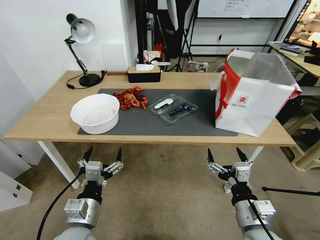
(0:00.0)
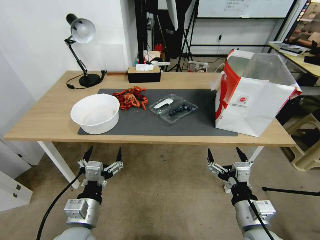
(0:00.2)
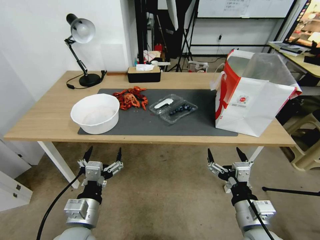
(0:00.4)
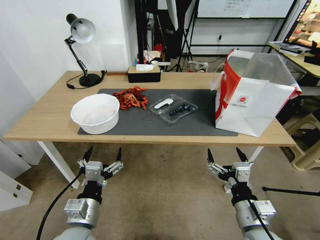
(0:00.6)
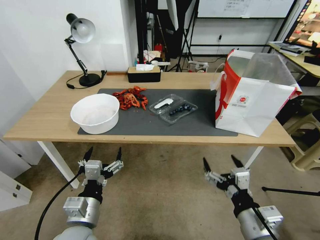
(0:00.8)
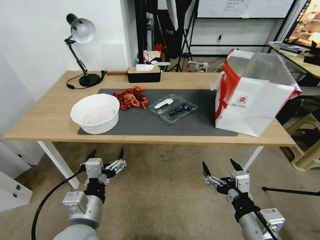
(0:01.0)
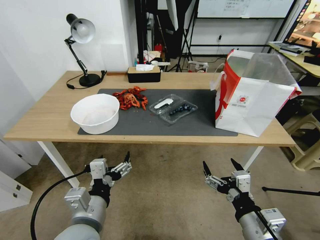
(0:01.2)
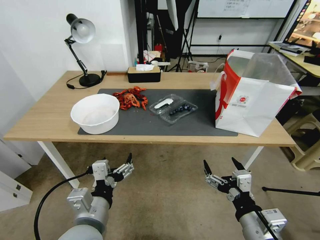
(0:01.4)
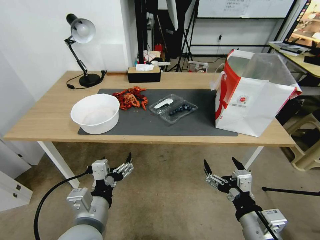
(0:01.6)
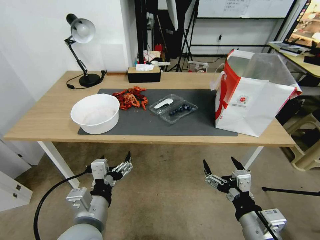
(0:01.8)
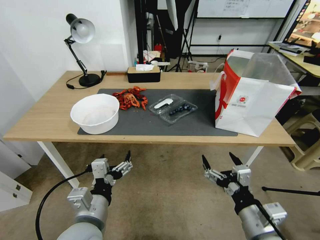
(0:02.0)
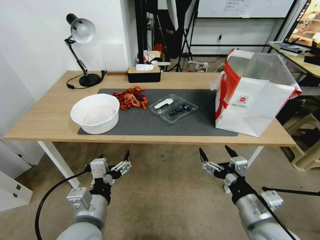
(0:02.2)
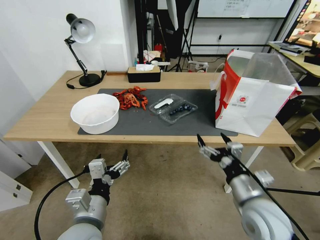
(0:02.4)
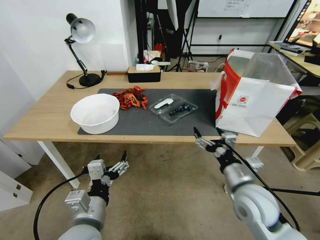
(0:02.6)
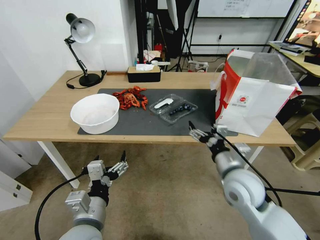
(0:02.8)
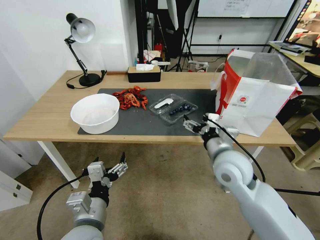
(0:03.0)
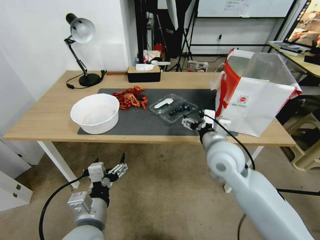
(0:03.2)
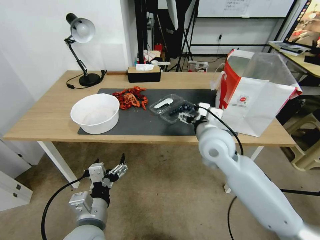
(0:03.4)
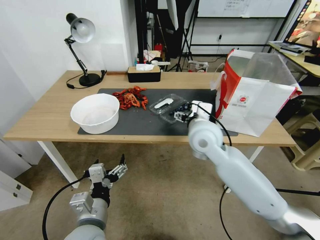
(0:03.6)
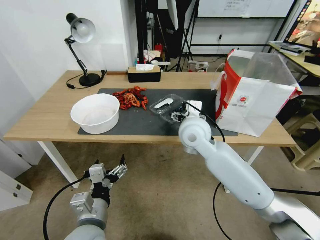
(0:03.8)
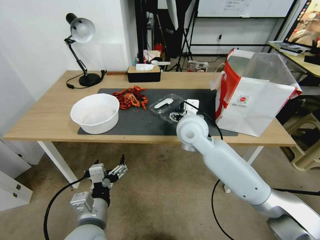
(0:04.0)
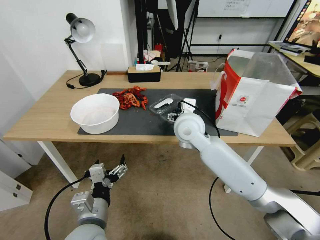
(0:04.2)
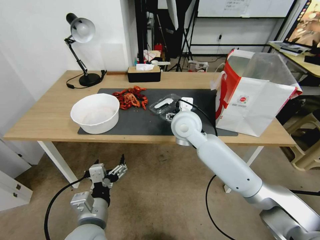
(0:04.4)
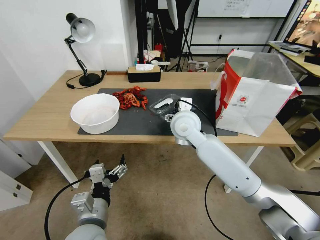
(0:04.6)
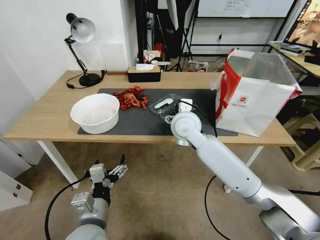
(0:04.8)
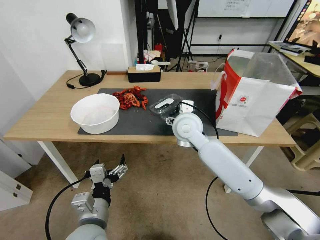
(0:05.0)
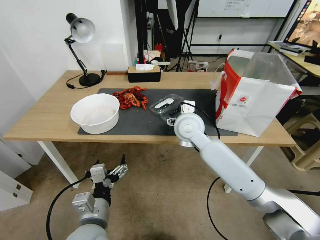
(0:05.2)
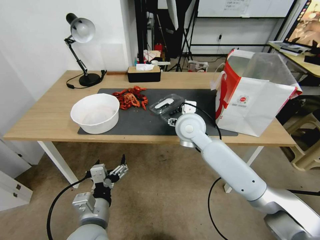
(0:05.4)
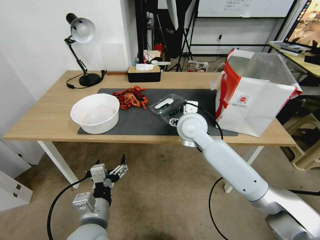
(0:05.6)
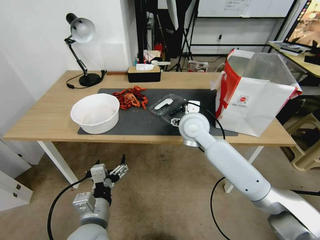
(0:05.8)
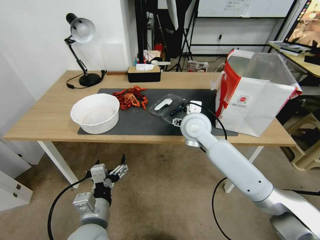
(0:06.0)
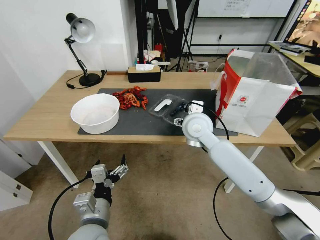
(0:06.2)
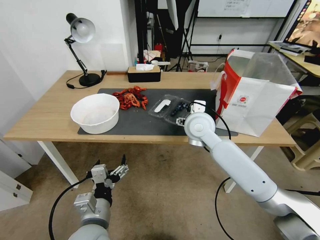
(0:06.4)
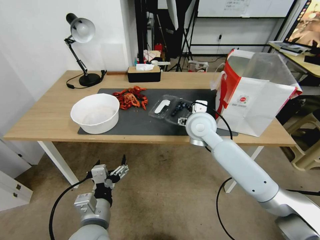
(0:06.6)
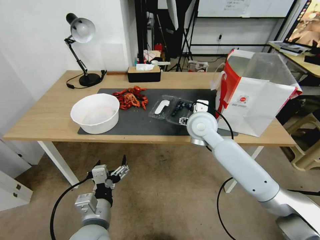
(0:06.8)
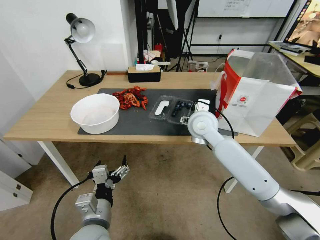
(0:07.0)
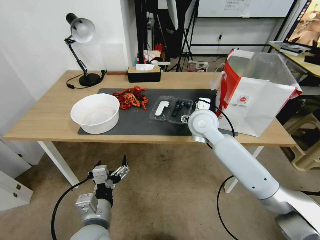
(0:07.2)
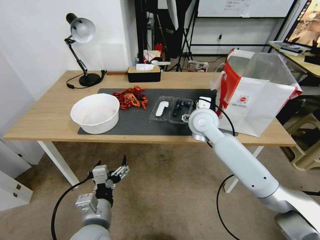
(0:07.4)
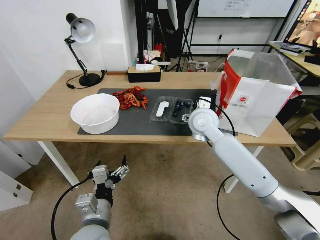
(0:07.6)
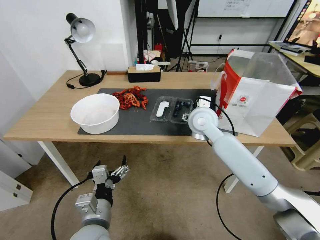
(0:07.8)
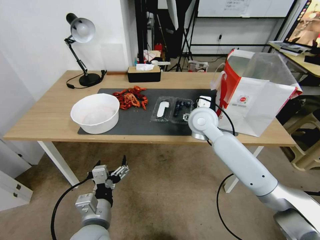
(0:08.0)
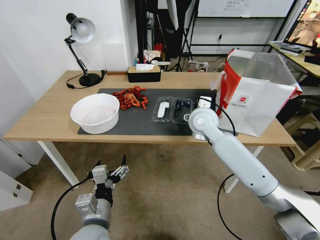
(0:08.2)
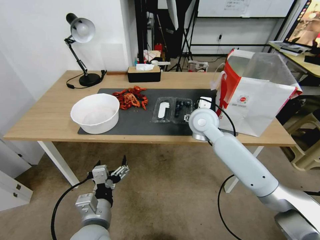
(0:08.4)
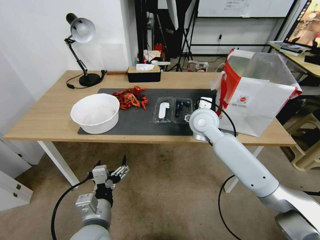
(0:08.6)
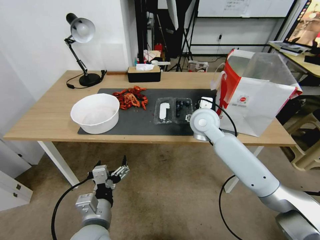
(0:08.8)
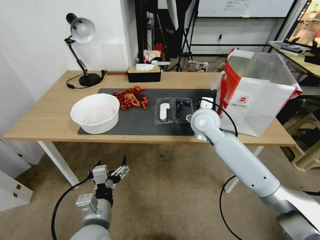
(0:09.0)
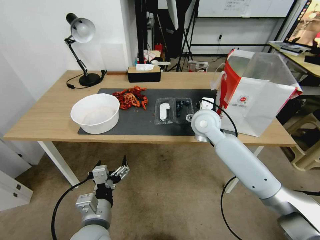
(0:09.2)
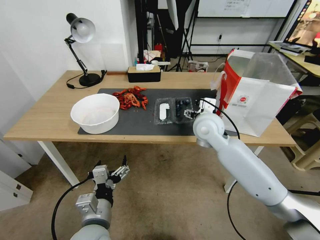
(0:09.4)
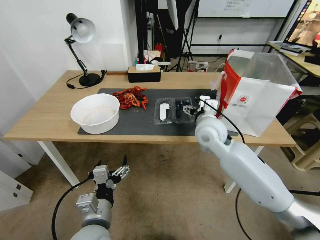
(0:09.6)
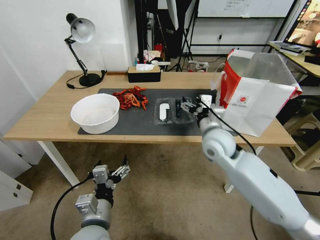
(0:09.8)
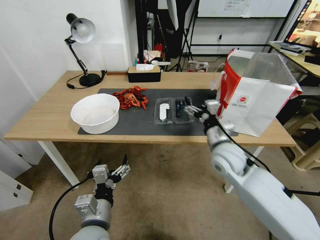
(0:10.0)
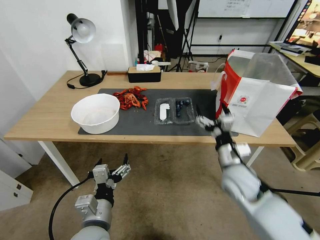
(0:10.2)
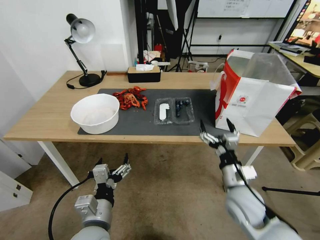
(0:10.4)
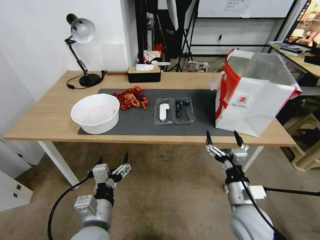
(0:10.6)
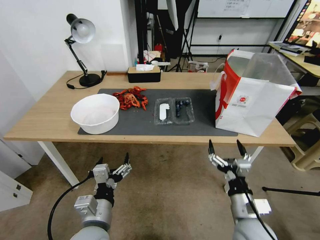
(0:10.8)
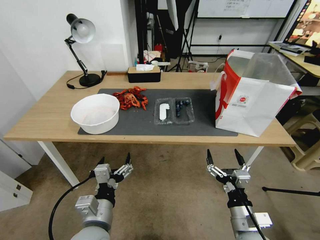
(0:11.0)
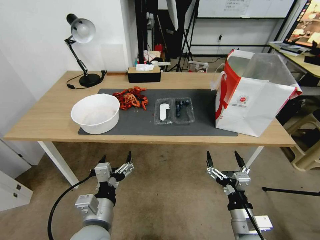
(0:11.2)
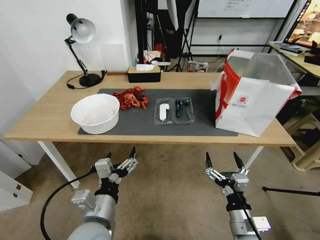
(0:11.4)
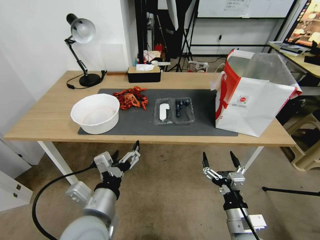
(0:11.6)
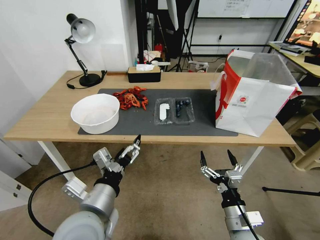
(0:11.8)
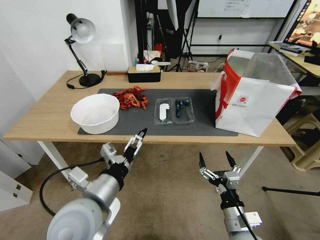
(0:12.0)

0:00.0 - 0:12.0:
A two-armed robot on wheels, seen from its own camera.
Task of the whole recording: Close the takeout container lid, then place the container into the takeout bag.
0:01.6 - 0:03.0: The right gripper heads forward, covering some 20 cm.
0:03.0 - 0:04.4: The right gripper travels forward and to the left by some 15 cm.
0:04.4 - 0:07.6: The grippers move only a little.
0:07.6 - 0:09.0: Both grippers stay about where they are.
0:09.0 - 0:10.4: The right gripper goes roughly 25 cm backward, downward and to the right.
0:10.4 - 0:12.0: The left gripper shifts roughly 10 cm upward, while the right gripper heads backward, covering approximately 10 cm.

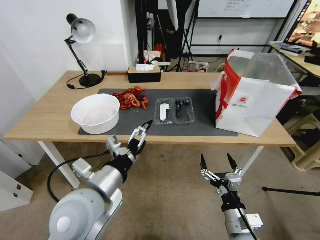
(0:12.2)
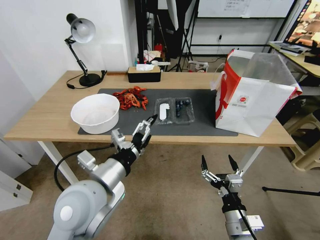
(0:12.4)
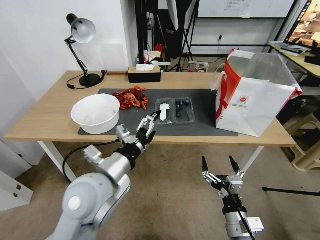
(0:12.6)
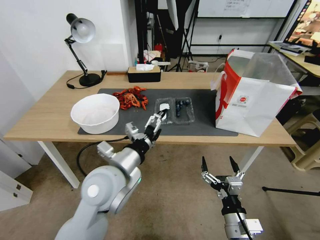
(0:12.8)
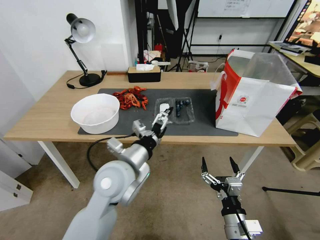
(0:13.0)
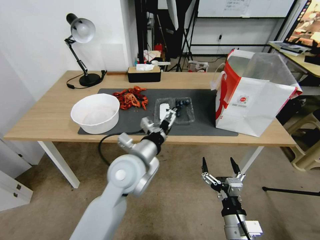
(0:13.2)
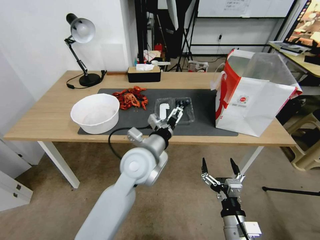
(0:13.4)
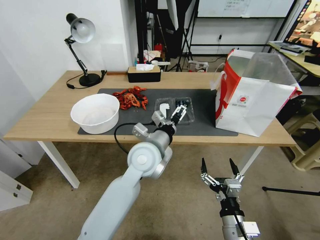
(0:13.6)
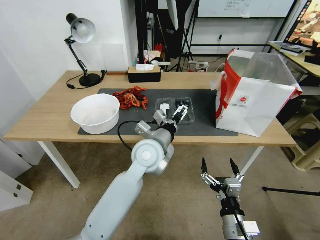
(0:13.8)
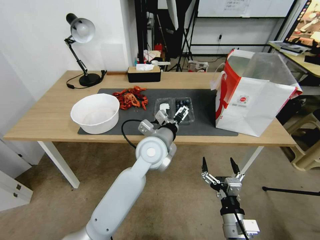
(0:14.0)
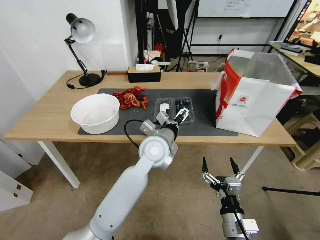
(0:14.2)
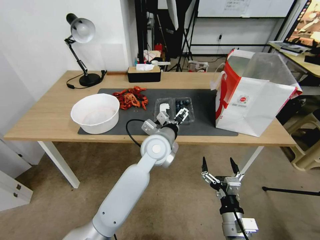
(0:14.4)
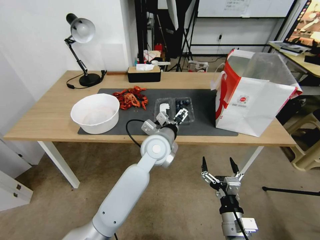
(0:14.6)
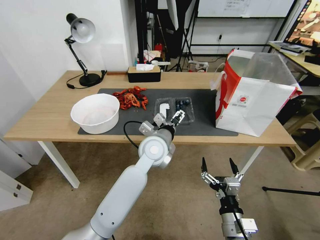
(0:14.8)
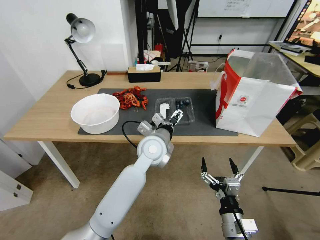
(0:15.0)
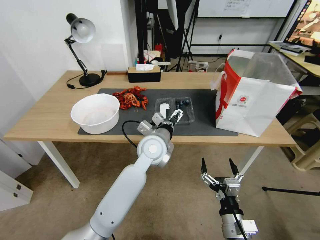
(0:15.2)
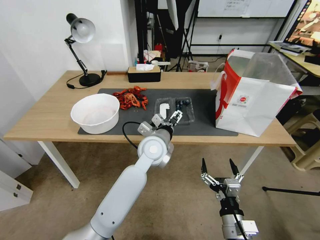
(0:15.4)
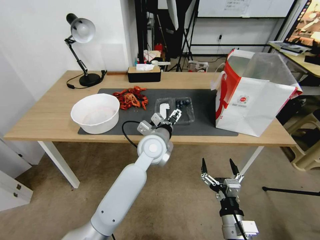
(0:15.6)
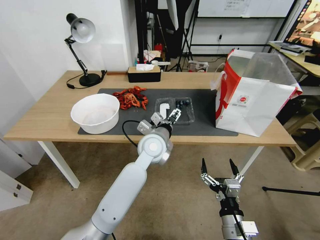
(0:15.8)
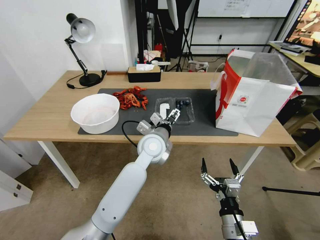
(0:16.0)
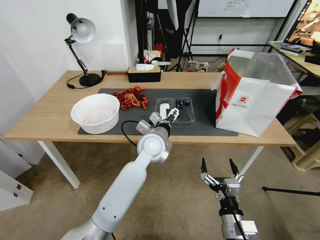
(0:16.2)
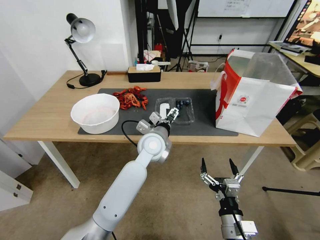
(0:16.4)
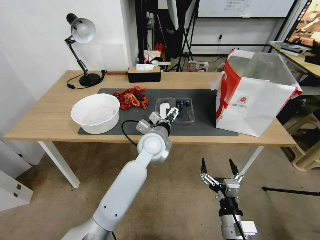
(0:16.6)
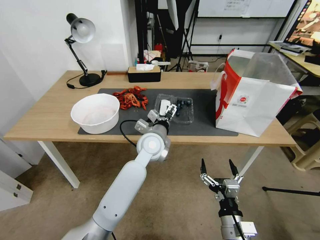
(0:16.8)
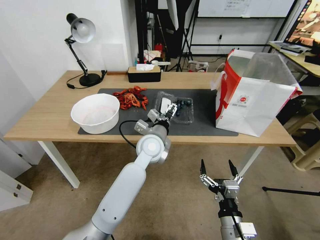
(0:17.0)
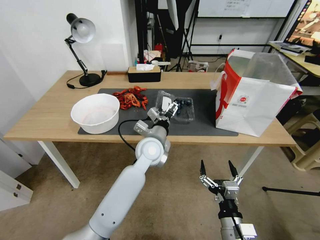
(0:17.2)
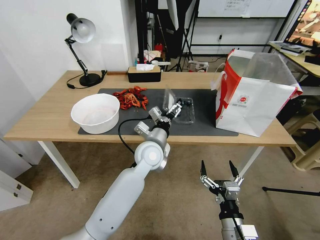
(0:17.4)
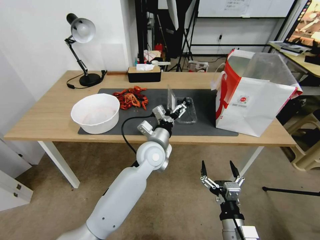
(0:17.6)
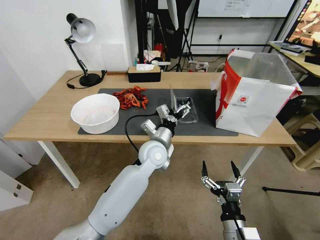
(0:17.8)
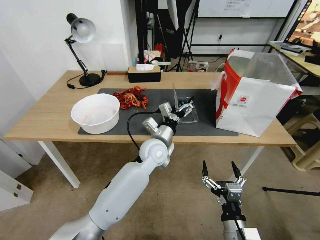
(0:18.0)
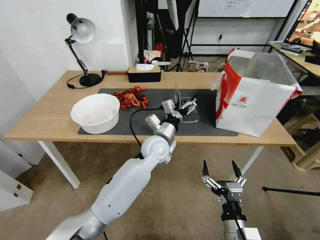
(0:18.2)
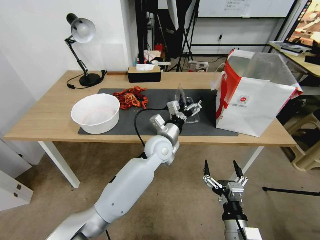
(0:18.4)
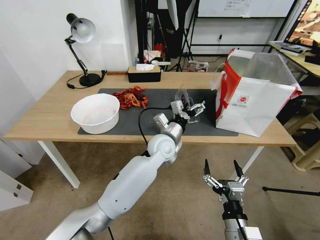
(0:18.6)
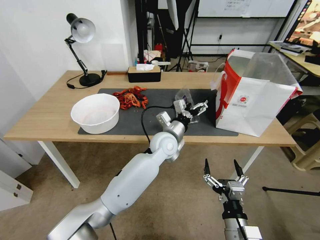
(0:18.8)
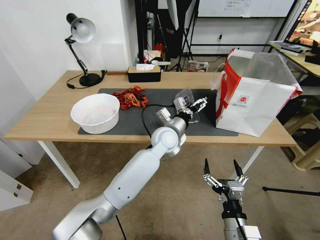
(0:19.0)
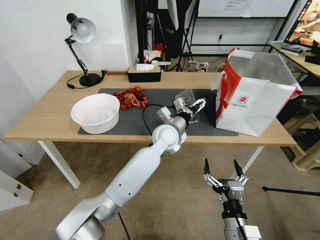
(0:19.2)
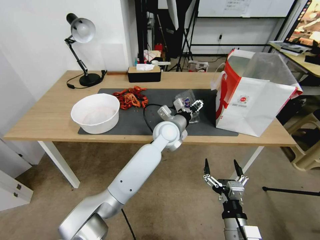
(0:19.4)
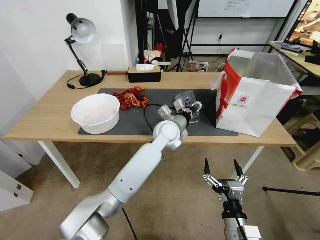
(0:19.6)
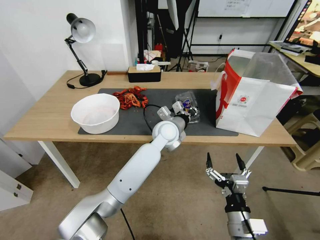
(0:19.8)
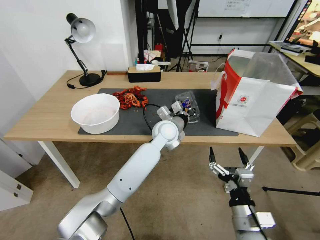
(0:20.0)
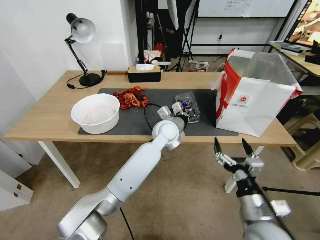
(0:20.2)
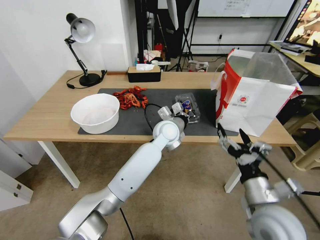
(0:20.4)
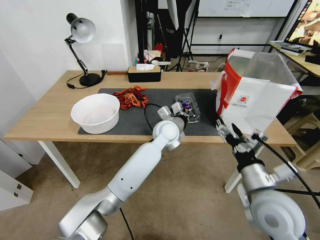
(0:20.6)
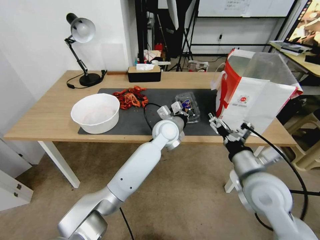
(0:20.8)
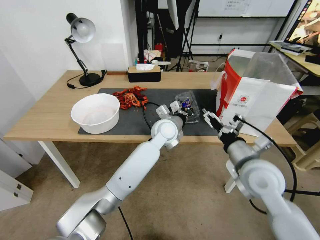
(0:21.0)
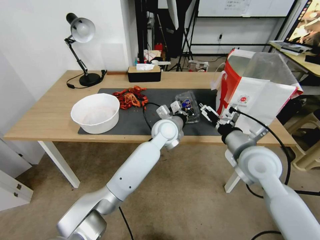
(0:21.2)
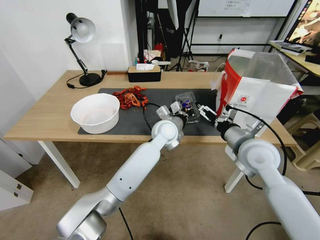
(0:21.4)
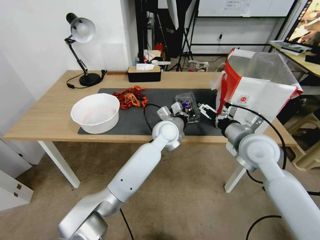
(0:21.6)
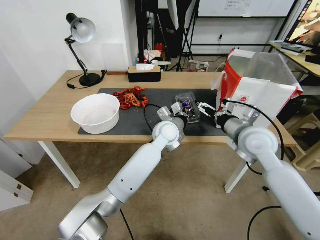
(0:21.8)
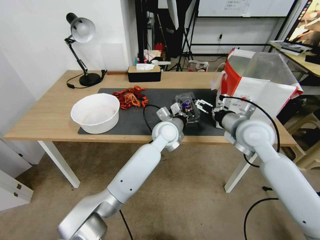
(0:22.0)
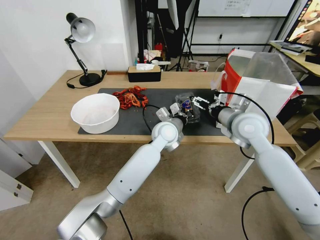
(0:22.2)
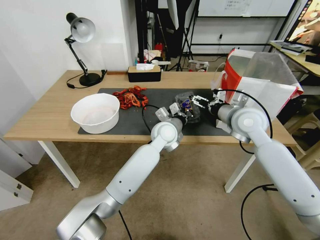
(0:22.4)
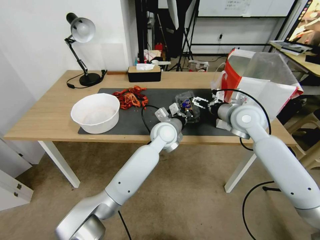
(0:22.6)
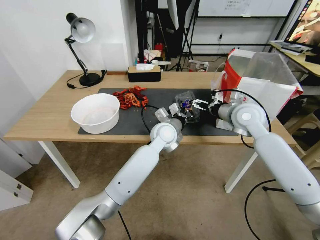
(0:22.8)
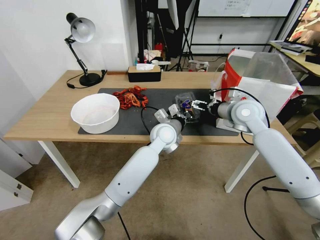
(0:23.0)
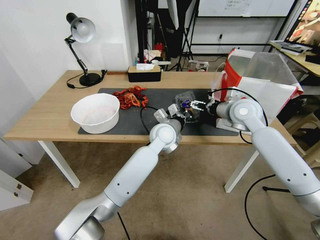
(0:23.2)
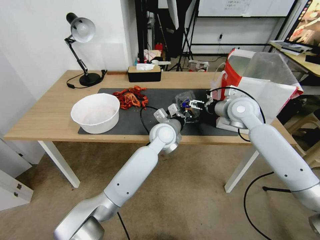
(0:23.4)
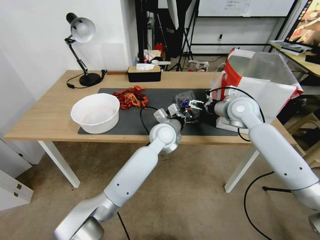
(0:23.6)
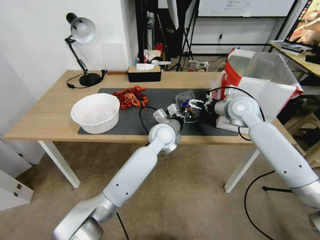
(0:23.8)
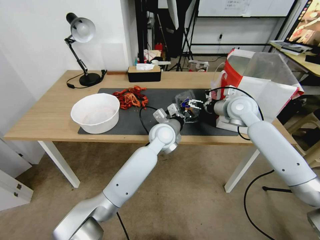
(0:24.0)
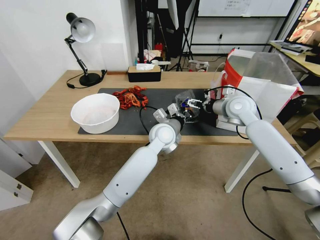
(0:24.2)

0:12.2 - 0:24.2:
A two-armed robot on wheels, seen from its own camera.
Task of the whole recording: Close the takeout container lid, then place the container into the takeout bag.
0:12.2 - 0:13.8: The left gripper moves forward and to the right, approximately 20 cm.
0:13.8 - 0:15.2: The grippers stay close to where they were, moving slightly.
0:15.2 - 0:16.6: The grippers move only a little.
0:18.2 - 0:19.8: The left gripper changes place by approximately 5 cm, and closes its fingers.
0:19.8 - 0:21.2: The right gripper travels forward and upward by some 25 cm.
0:21.2 - 0:22.6: The right gripper is displaced forward by some 15 cm.
0:22.6 - 0:24.2: The right gripper shifts approximately 5 cm forward.
